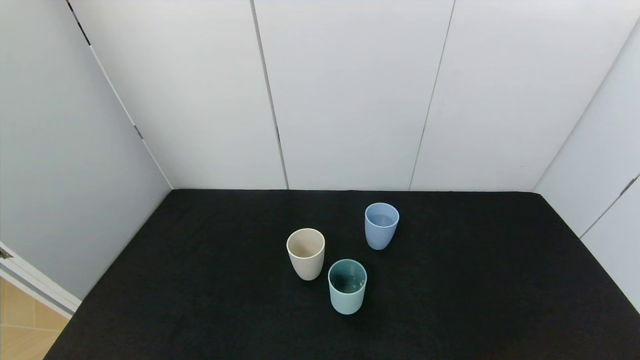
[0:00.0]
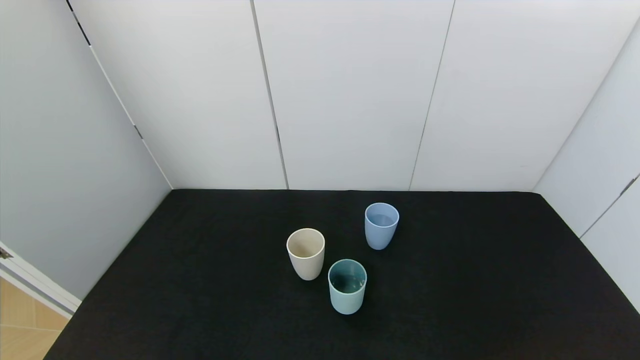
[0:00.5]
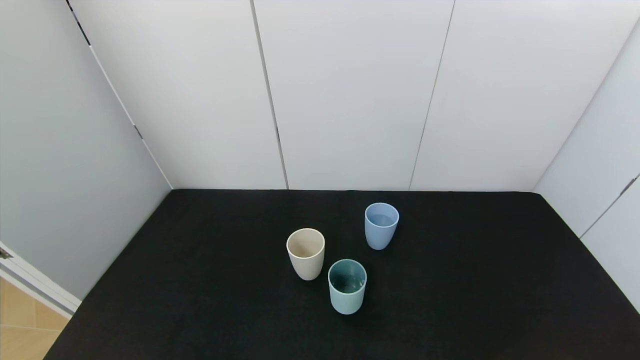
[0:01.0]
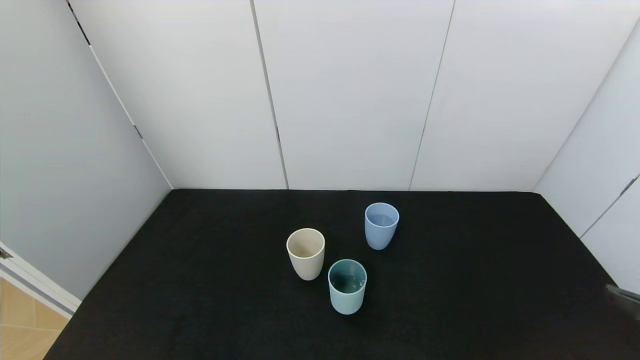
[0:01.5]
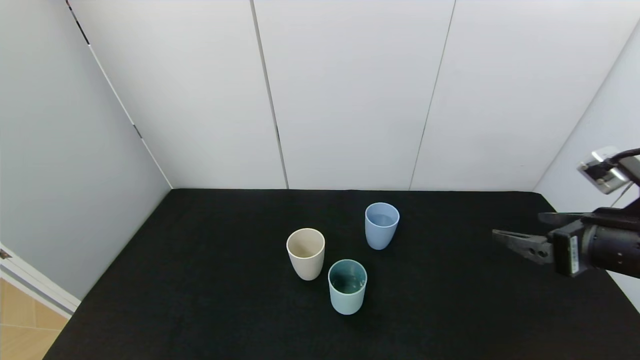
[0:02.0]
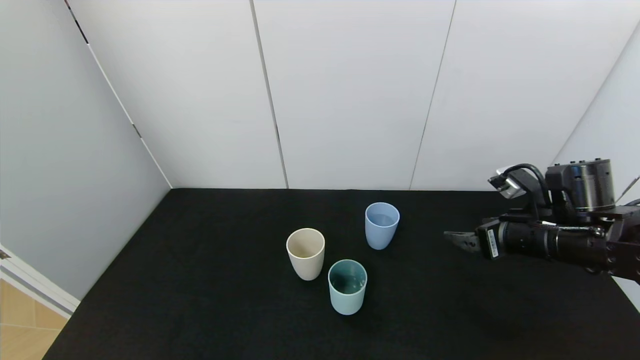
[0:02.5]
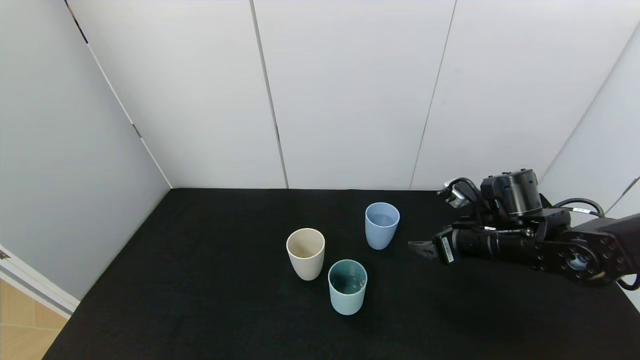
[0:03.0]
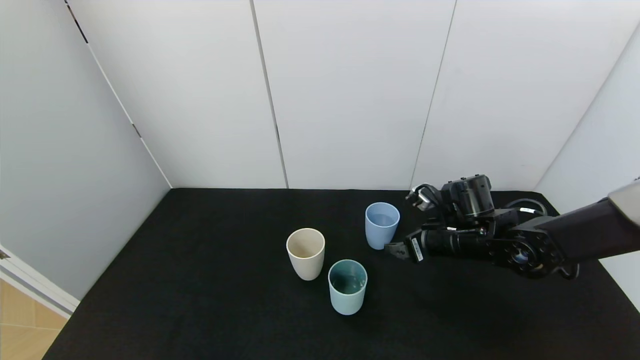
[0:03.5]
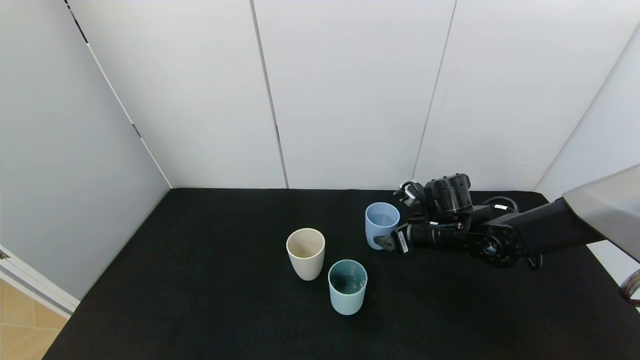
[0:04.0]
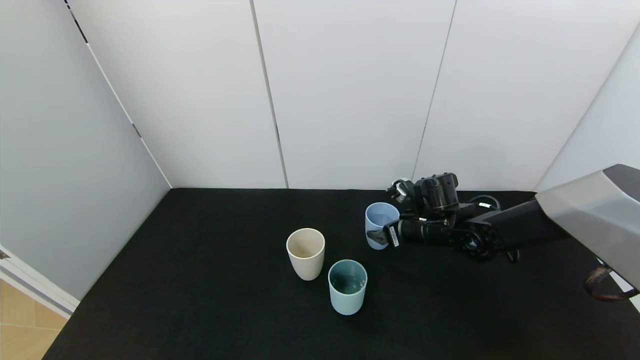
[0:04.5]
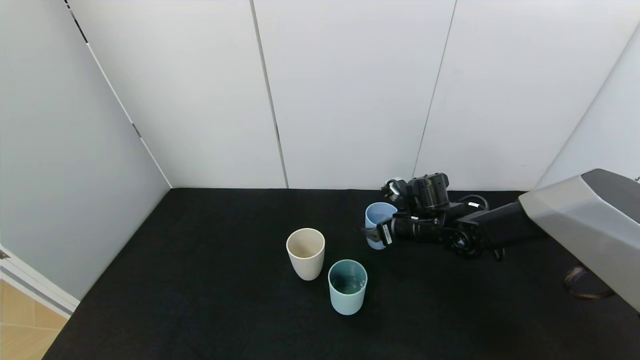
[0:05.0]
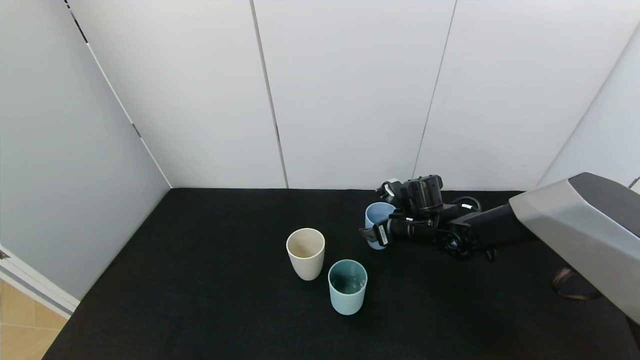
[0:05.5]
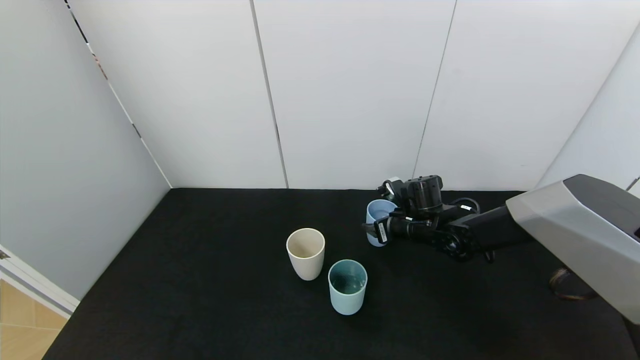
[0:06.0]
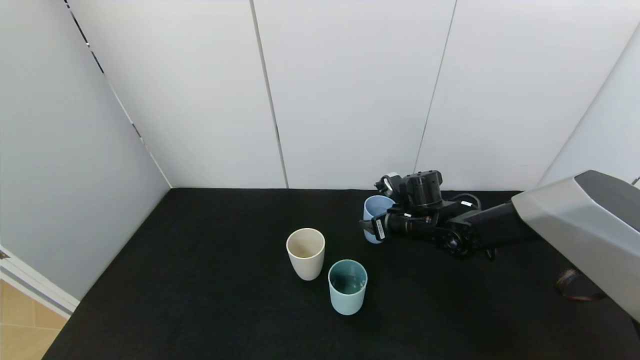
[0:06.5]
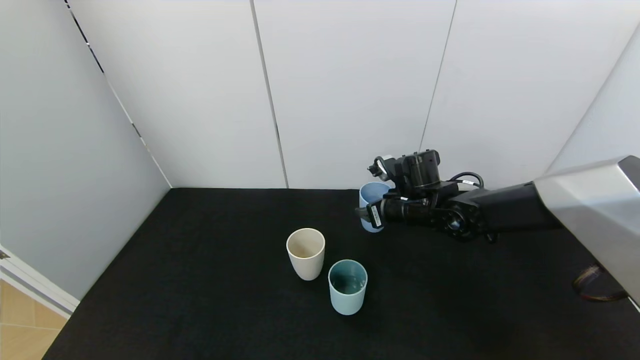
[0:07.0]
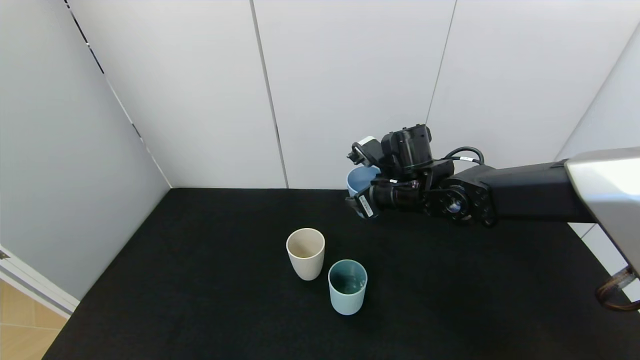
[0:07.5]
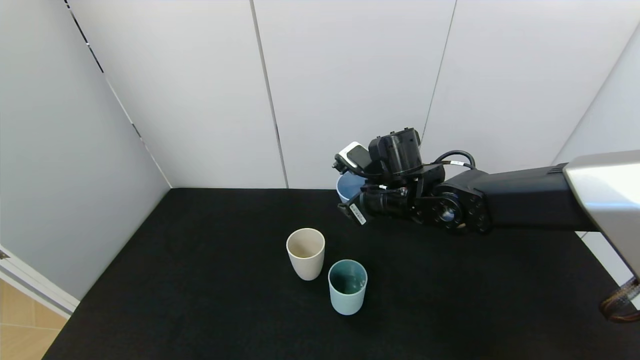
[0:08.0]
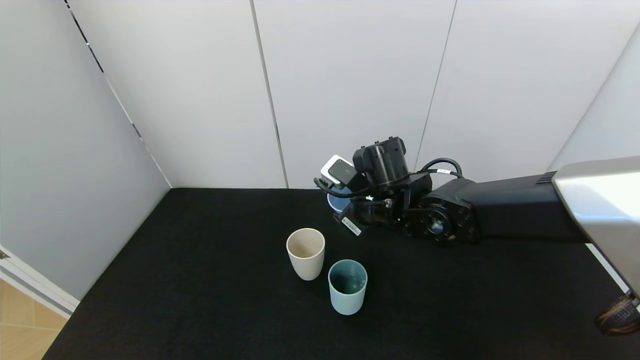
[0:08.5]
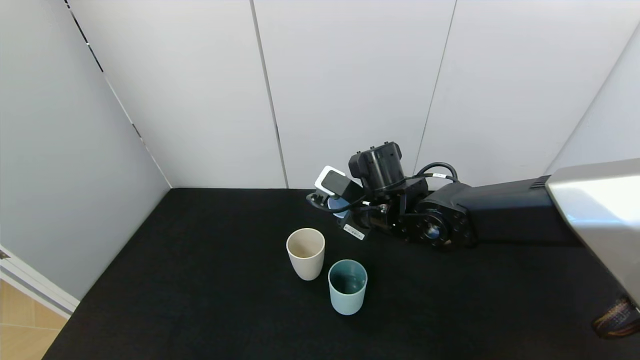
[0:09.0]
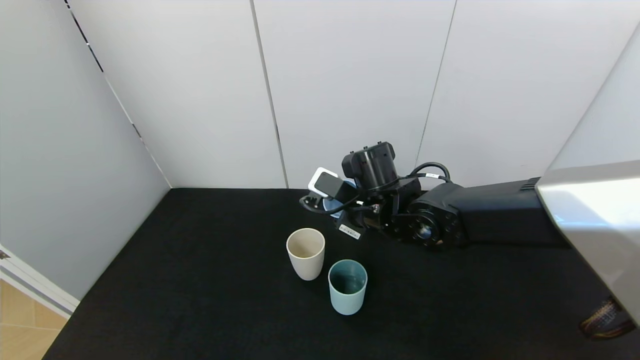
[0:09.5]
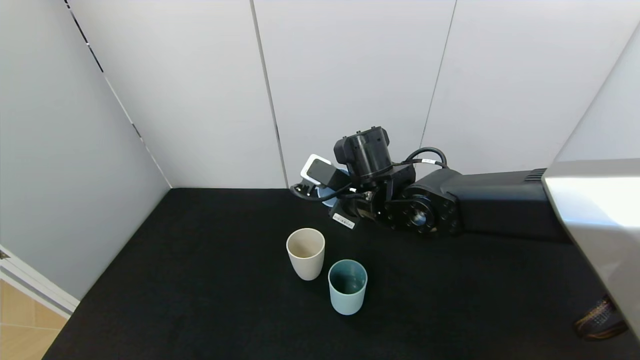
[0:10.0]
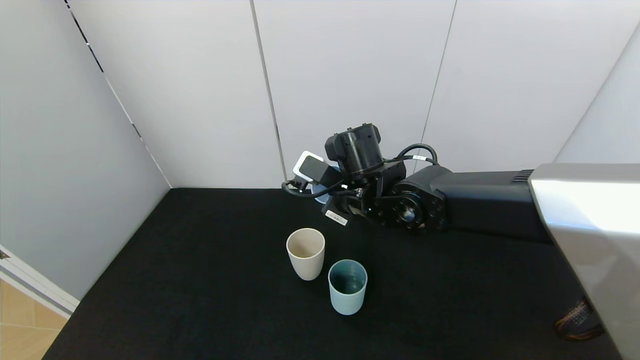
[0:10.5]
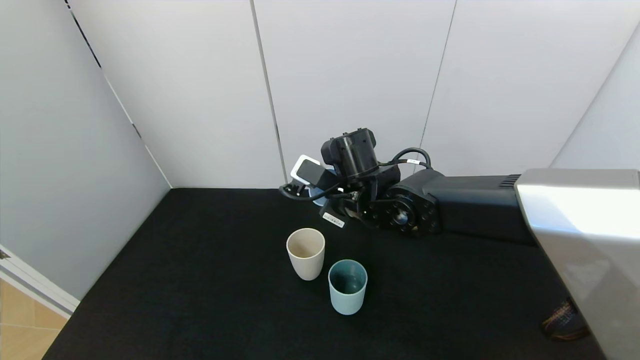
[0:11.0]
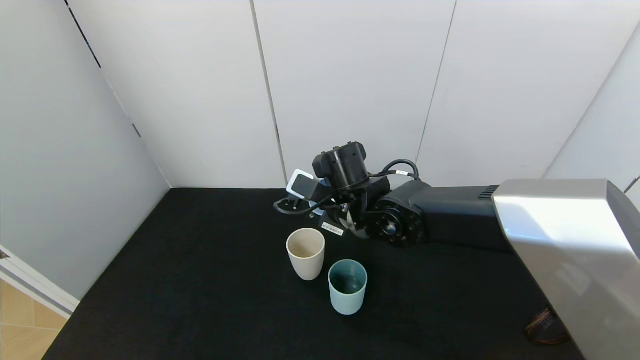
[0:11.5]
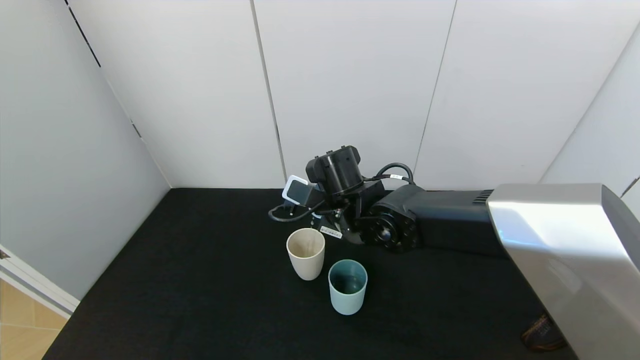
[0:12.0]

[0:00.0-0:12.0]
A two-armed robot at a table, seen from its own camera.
Task of the whole recording: use the gripper to pour the water into the other two cups on black table.
Step, 0:00.0 to 0:06.0: Grasp the blue cup with the right gripper.
0:00.0 to 0:02.0: The right gripper shifts roughly 30 cm forward and upward.
0:02.0 to 0:04.0: The right gripper is displaced forward, to the left and downward by about 25 cm.
0:04.0 to 0:06.0: The right gripper ends up roughly 5 cm from where it was, and closes its fingers.
0:06.0 to 0:08.0: The right gripper shifts some 15 cm upward, to the left and backward.
0:10.0 to 0:12.0: The grippers make only small movements.

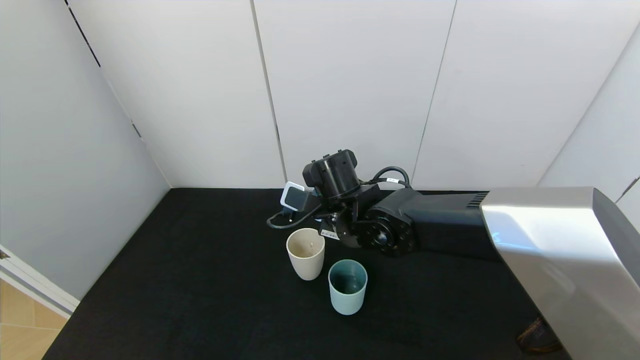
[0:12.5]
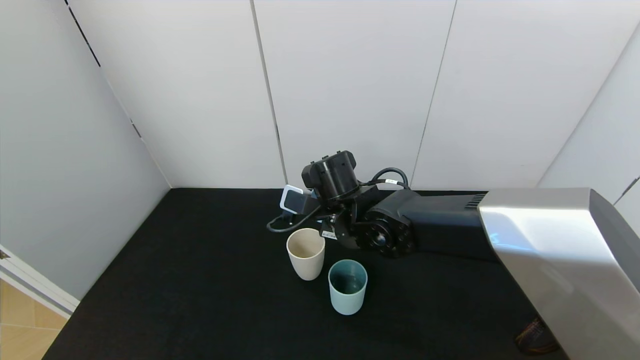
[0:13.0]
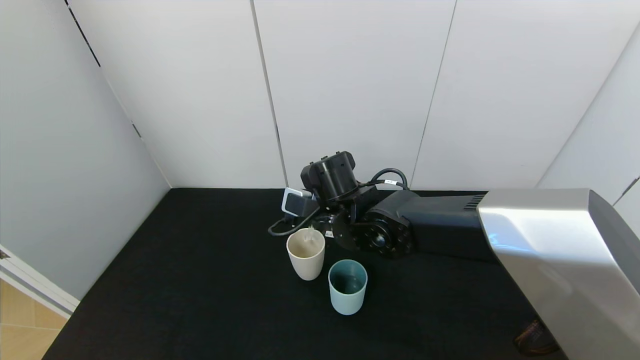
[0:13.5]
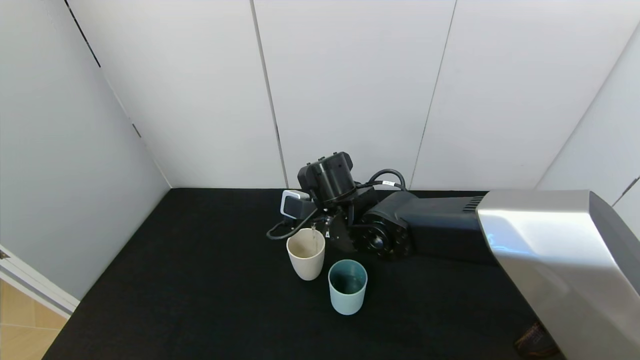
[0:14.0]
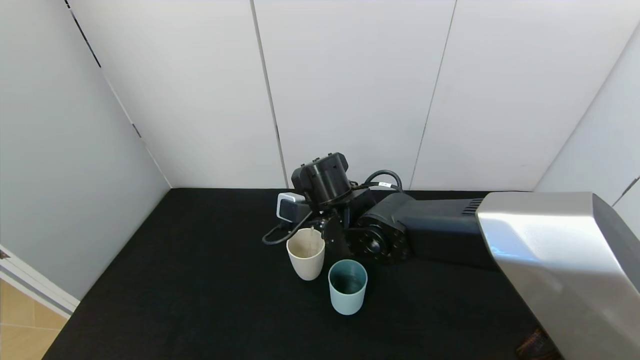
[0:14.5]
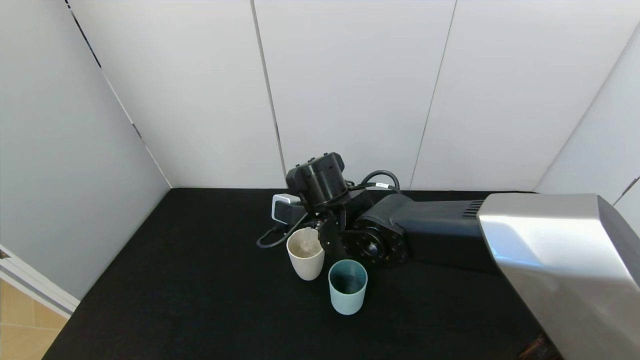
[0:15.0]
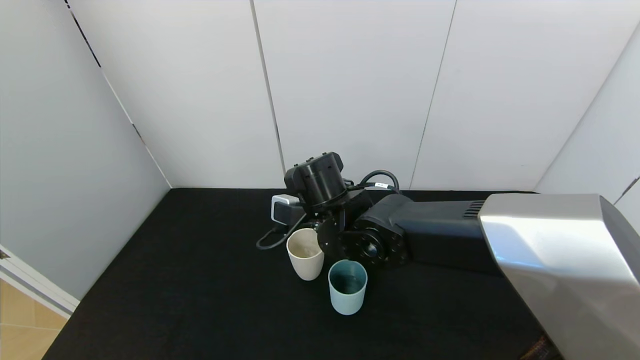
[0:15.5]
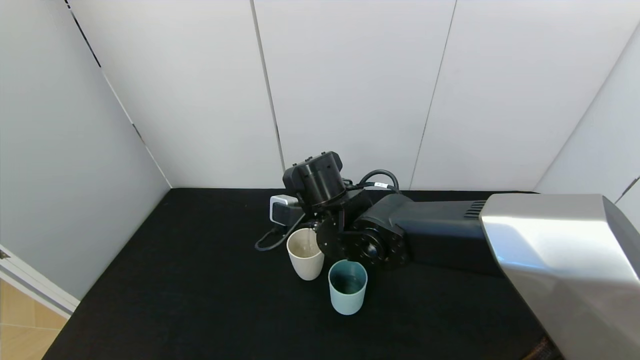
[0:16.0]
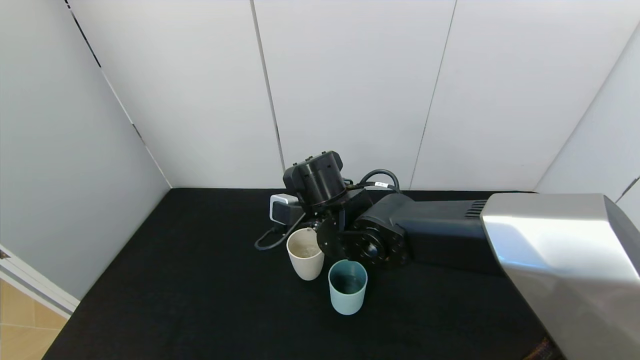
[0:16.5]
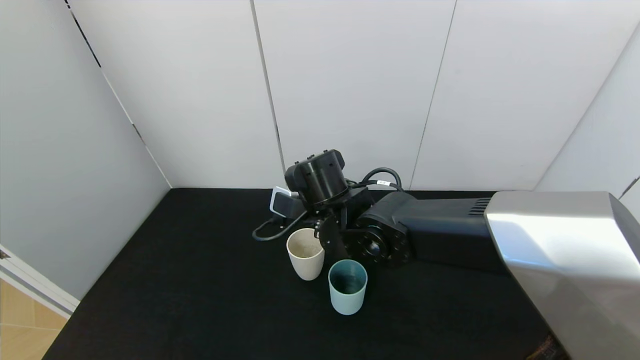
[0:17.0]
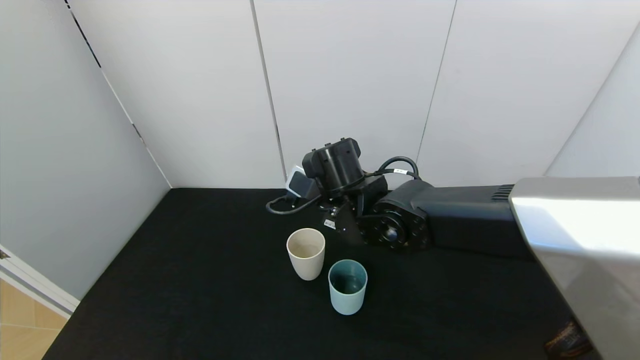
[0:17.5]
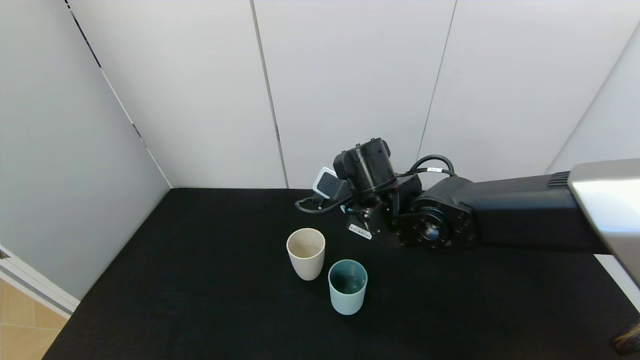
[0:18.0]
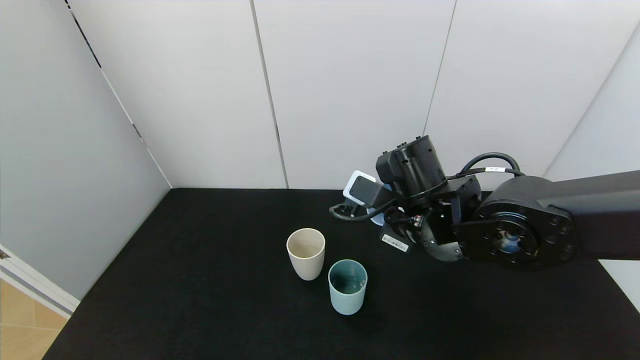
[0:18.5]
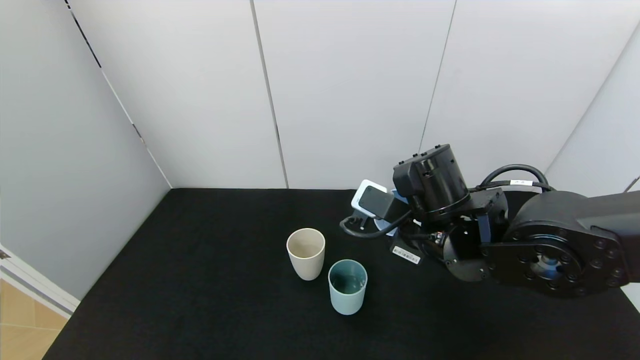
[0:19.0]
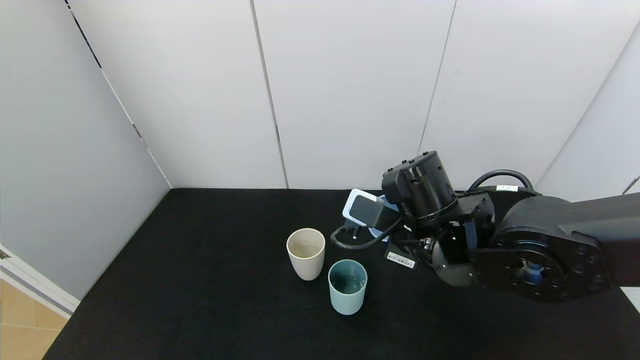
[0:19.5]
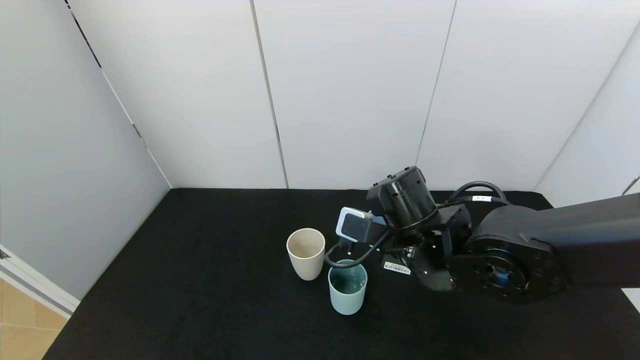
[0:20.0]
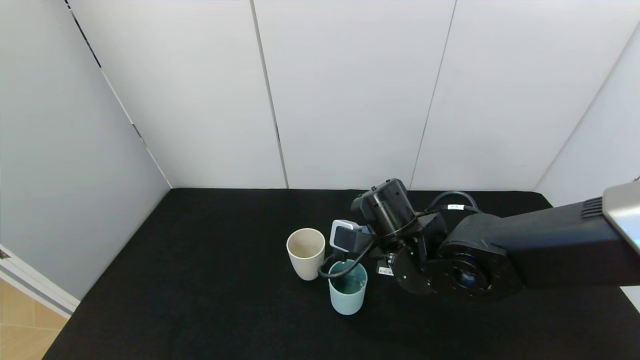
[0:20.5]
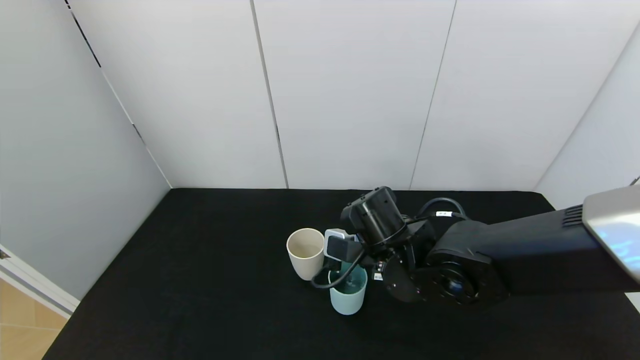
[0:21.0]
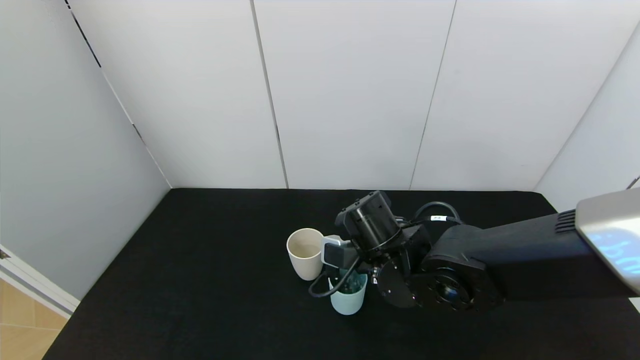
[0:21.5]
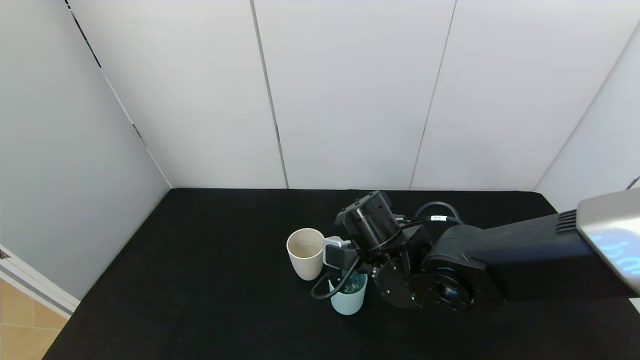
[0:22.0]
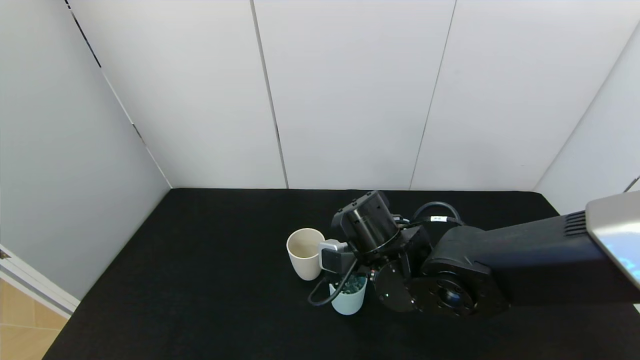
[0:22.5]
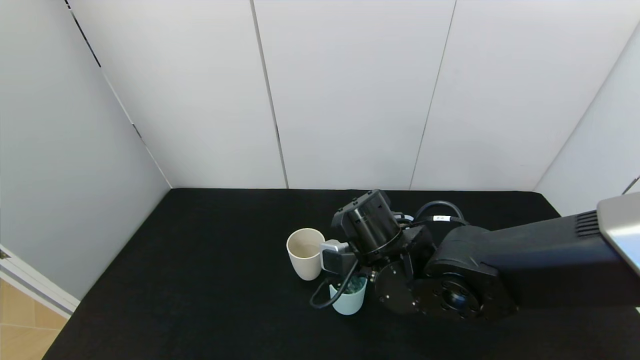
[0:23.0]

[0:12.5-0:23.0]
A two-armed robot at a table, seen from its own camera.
Task of the whole recording: use the gripper to pour the water into the other two cups on black table.
Step, 0:12.5 to 0:18.0: Pour water from blue cup to white cup with the right gripper.
0:12.5 to 0:16.5: The grippers stay close to where they were, moving slightly.
0:16.5 to 0:19.0: The right gripper goes about 15 cm to the right and backward.
0:19.0 to 0:21.0: The right gripper shifts roughly 5 cm downward.
0:21.0 to 0:23.0: The grippers move only a little.
